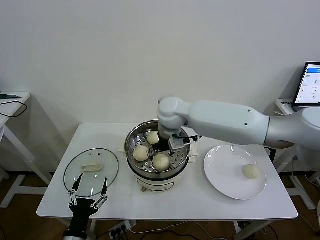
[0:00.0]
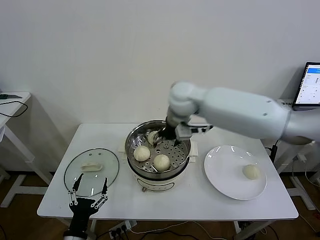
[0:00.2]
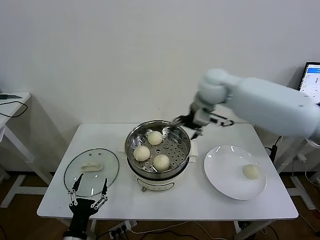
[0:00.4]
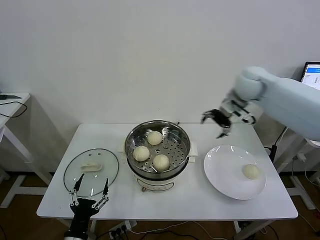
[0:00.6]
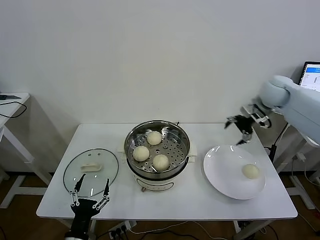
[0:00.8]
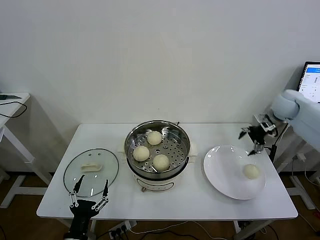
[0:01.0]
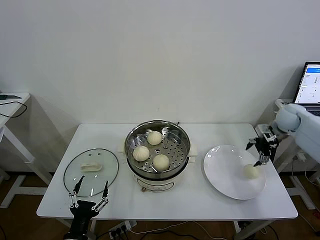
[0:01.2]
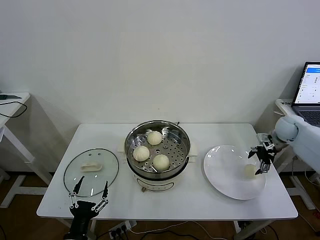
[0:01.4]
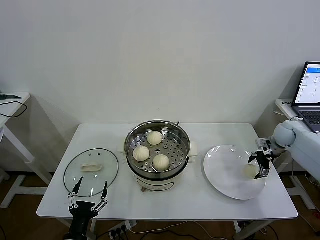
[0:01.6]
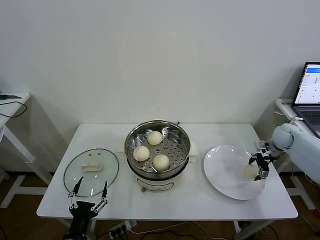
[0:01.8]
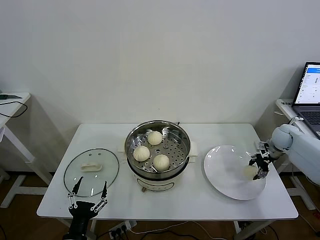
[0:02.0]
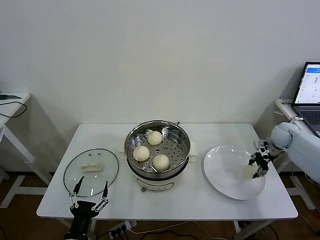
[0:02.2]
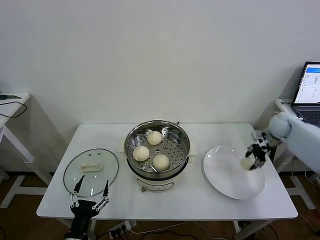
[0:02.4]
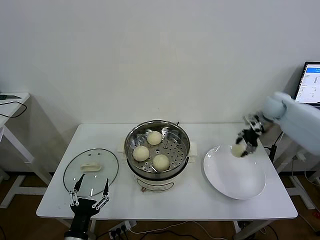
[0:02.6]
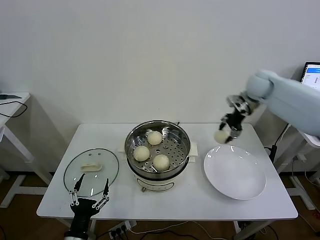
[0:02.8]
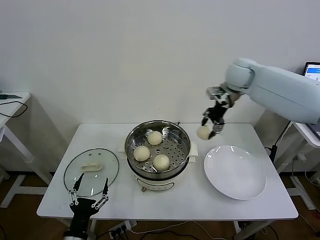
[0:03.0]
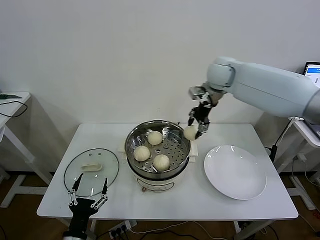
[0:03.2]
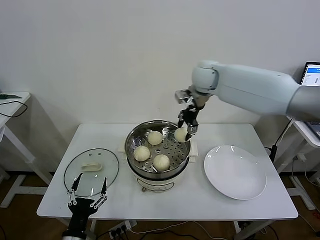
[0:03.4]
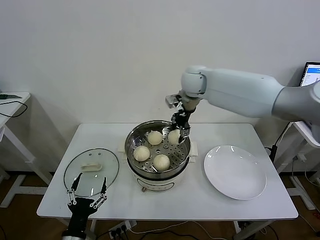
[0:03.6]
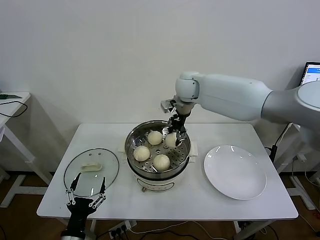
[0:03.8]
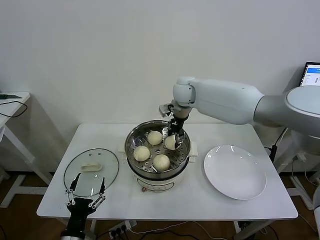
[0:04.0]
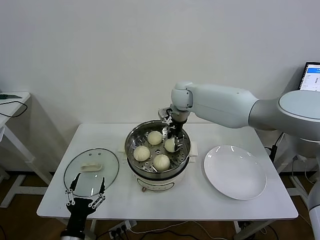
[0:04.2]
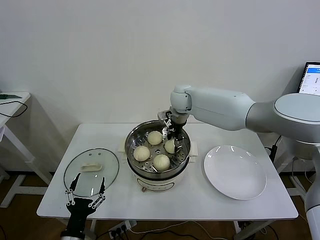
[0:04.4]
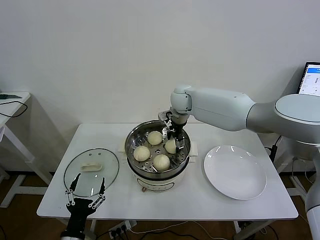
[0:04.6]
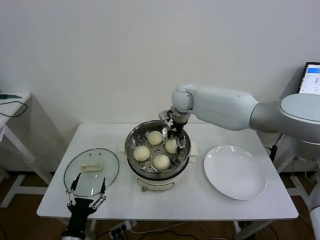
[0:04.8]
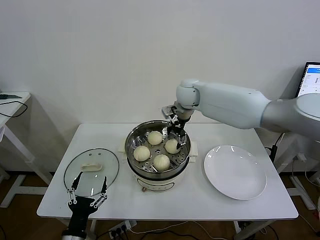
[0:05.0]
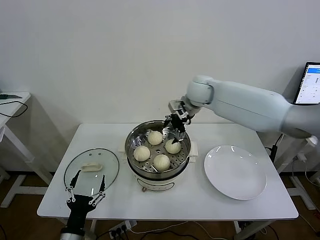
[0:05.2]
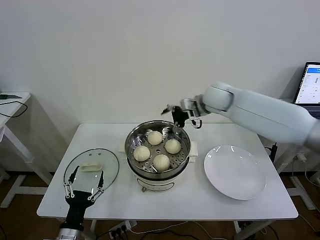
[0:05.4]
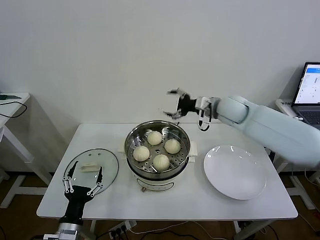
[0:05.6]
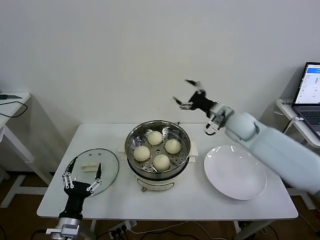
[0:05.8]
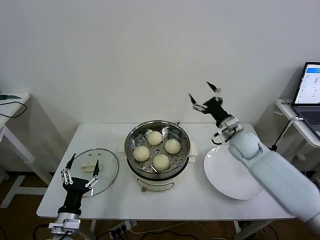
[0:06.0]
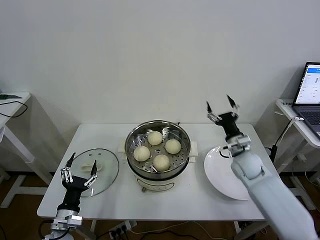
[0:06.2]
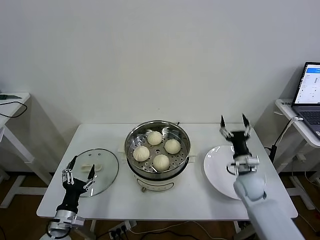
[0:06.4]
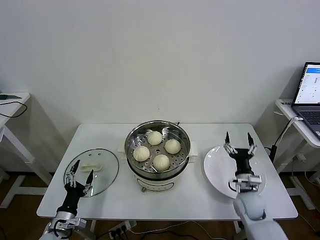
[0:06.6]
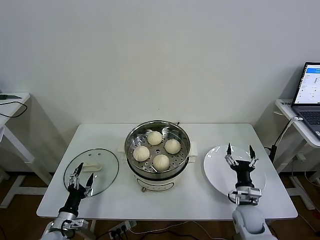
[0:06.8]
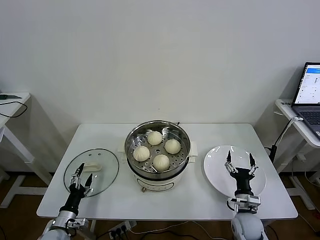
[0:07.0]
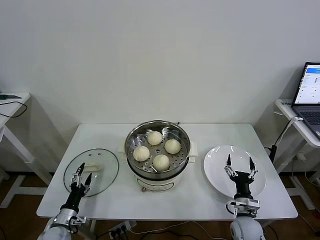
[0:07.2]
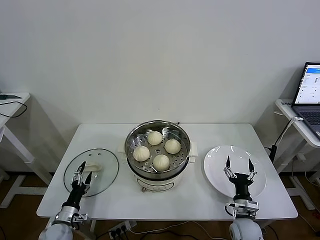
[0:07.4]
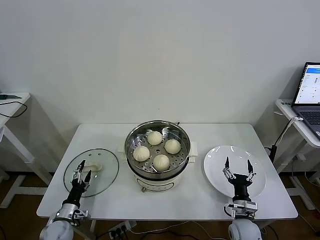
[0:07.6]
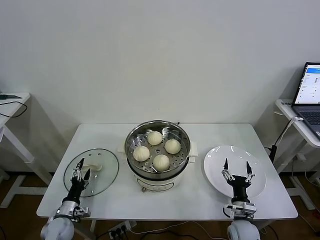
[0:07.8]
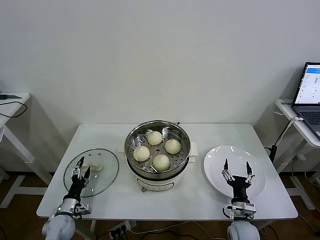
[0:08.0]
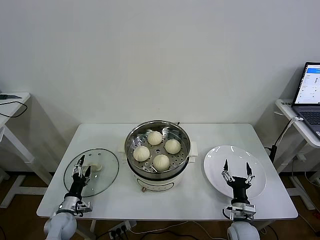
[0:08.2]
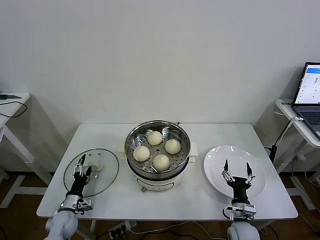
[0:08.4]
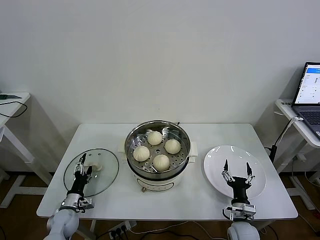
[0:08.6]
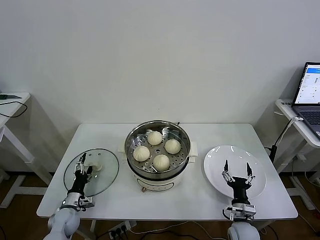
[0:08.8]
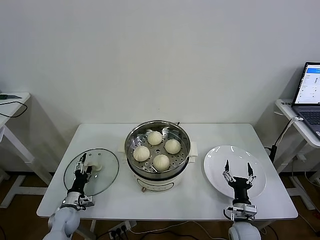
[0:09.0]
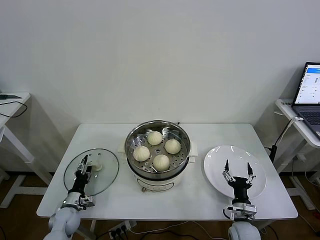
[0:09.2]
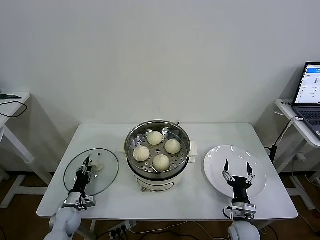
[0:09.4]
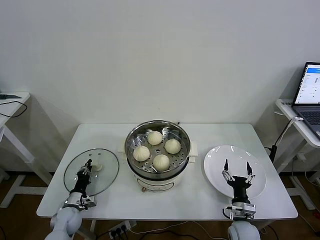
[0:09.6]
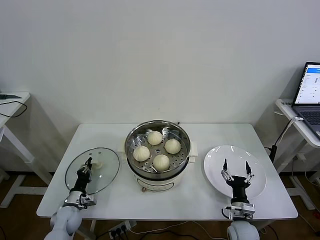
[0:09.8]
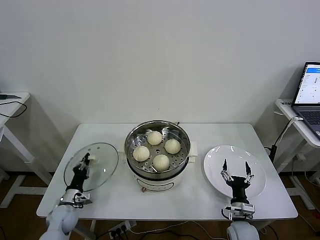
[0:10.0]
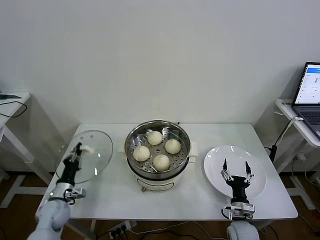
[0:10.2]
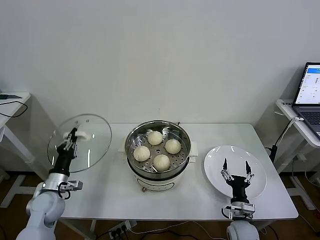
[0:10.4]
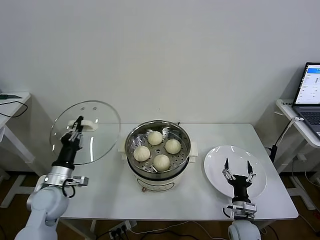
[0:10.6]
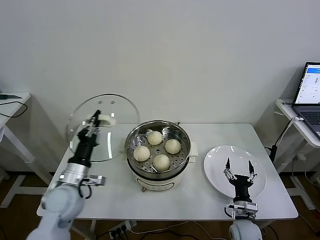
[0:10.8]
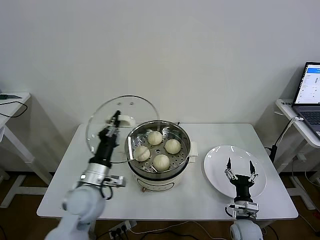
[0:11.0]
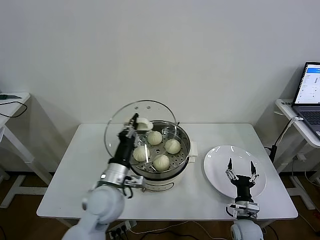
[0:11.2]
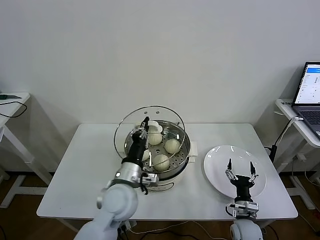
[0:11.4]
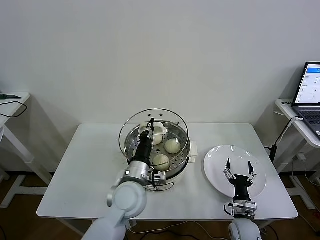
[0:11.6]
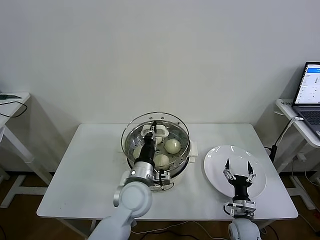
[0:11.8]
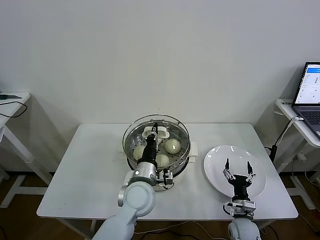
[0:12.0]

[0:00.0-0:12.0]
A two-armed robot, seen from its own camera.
Task of the whole recording: take steamed baozi put them in steamer then cover it.
Step, 0:00.2 to 0:02.0: Grasp the baozi in the plate with right gripper.
Step, 0:02.2 to 0:04.8: Place the baozi on the steamer with right gripper.
Step, 0:05.0 to 0:09.8: Grasp the pot lid with left gripper.
0:00.0 to 0:01.6: The right gripper shifts some 50 cm to the right.
0:01.6 to 0:03.0: The right gripper travels to the left and upward by about 30 cm, and closes up.
0:03.0 to 0:04.4: The right gripper moves to the left and downward, approximately 20 cm.
0:04.4 to 0:06.0: The right gripper shifts some 25 cm to the right, backward and downward, and opens up. Meanwhile the left gripper heads forward, covering roughly 5 cm.
0:06.0 to 0:07.6: The left gripper shifts some 15 cm downward, to the left and forward, while the right gripper travels downward and backward by about 30 cm.
0:07.6 to 0:09.0: The left gripper heads forward, covering about 5 cm.
0:09.0 to 0:10.4: The left gripper goes some 10 cm upward, and closes its fingers.
0:10.4 to 0:12.0: The left gripper moves to the right, some 30 cm.

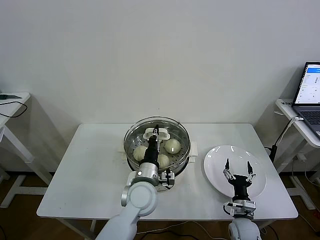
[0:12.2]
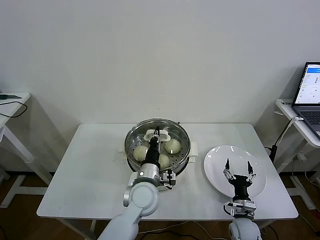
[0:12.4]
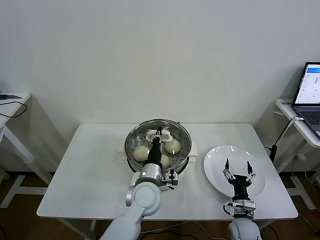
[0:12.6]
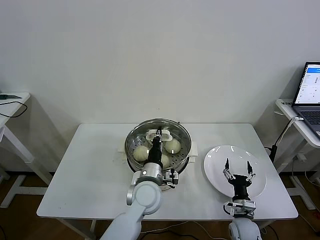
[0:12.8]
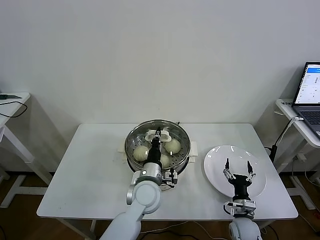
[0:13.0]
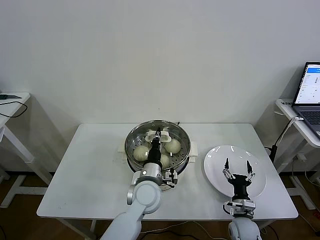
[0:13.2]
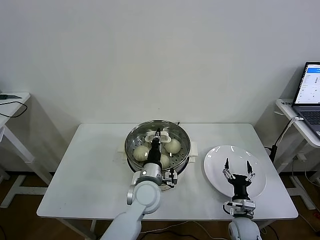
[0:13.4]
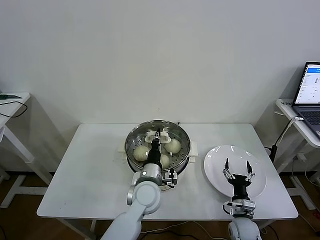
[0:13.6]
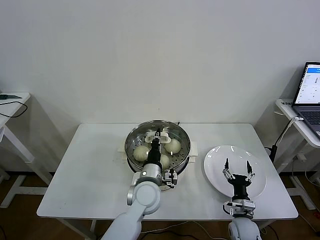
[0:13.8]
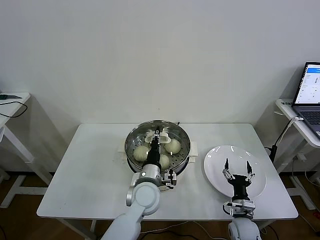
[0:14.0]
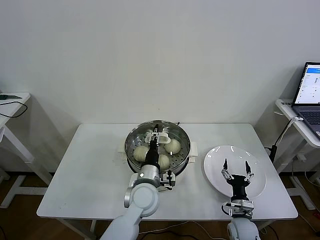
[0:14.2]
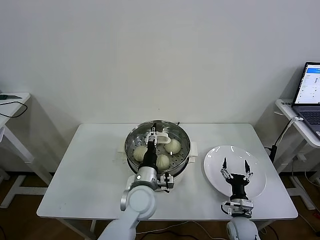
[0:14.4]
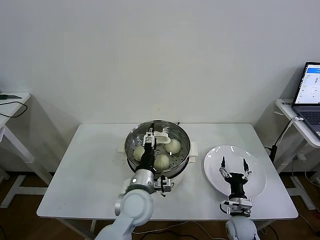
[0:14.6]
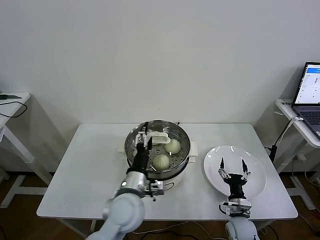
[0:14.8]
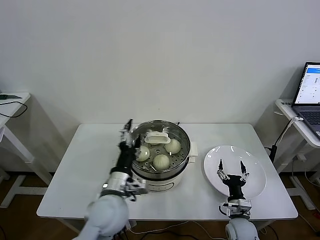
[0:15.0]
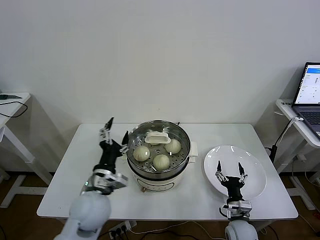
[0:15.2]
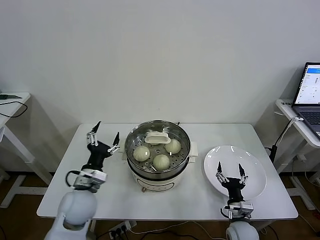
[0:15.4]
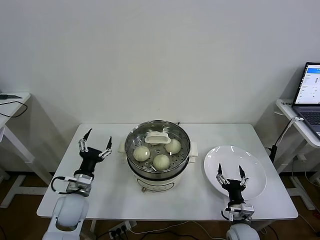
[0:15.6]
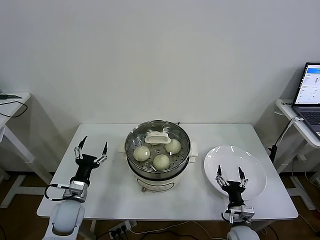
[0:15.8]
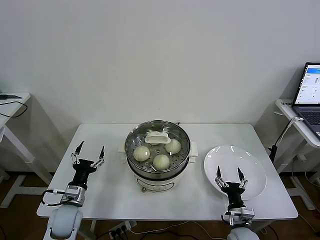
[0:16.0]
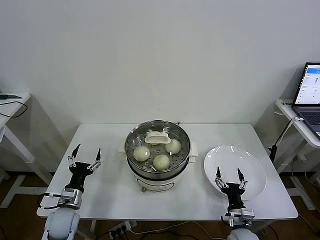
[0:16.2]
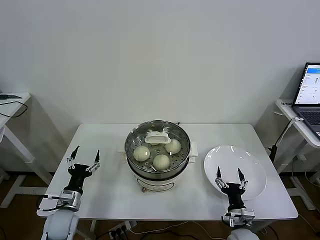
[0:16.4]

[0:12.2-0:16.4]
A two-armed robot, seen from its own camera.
Task of the whole recording: take steamed baozi put them in steamer then cover it.
Step, 0:12.2 to 0:14.4: Place the pot lid on the steamer with left gripper.
0:12.2 to 0:13.6: The grippers stay close to where they were, moving slightly.
0:13.6 to 0:15.0: The left gripper heads to the left, backward and upward, covering some 10 cm, and opens.
0:15.0 to 0:16.4: The left gripper goes about 25 cm to the left and downward.
